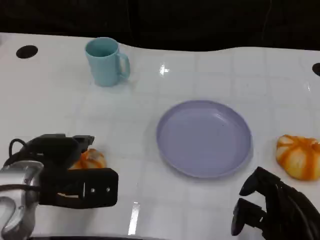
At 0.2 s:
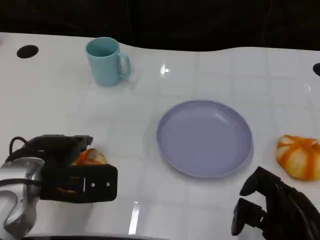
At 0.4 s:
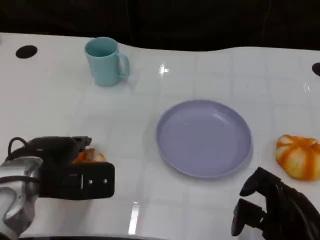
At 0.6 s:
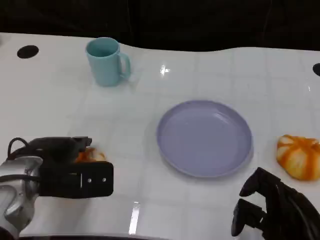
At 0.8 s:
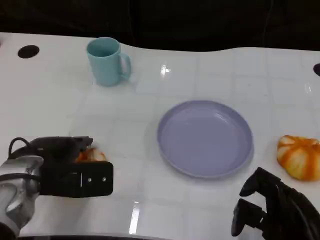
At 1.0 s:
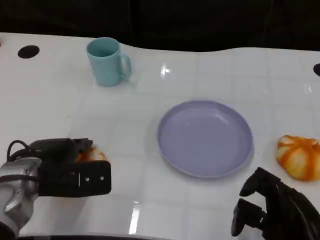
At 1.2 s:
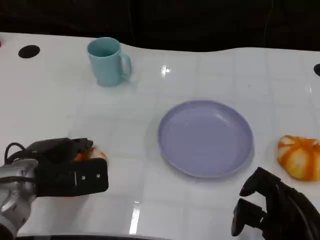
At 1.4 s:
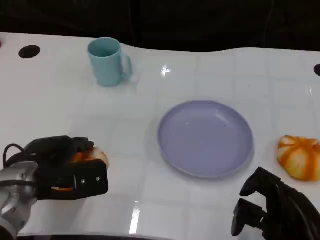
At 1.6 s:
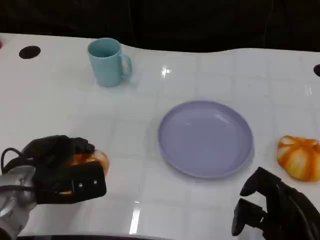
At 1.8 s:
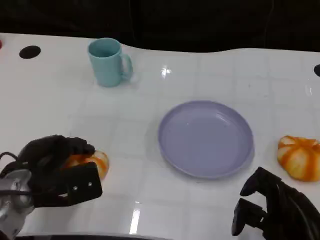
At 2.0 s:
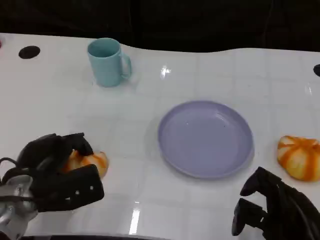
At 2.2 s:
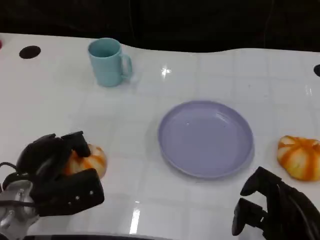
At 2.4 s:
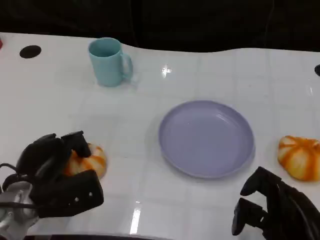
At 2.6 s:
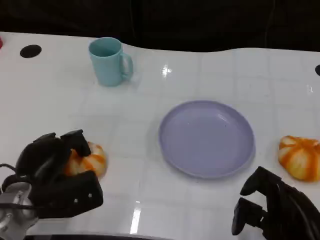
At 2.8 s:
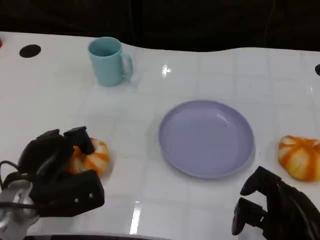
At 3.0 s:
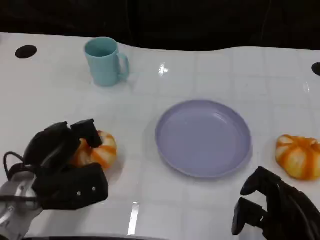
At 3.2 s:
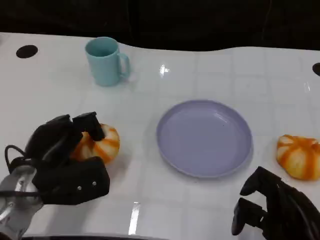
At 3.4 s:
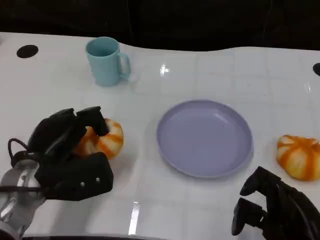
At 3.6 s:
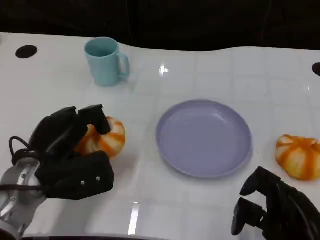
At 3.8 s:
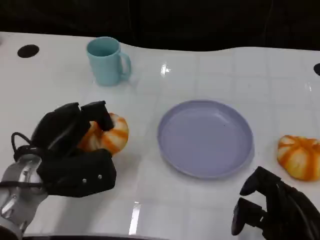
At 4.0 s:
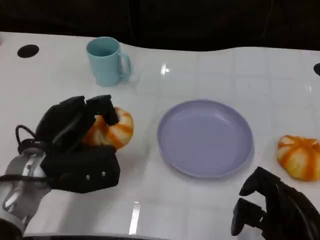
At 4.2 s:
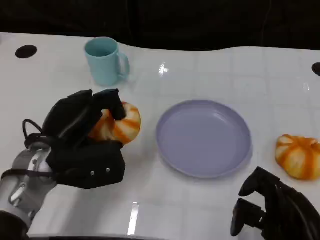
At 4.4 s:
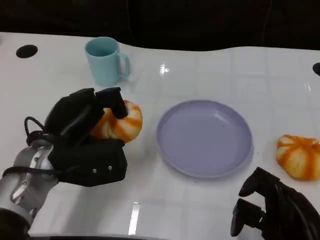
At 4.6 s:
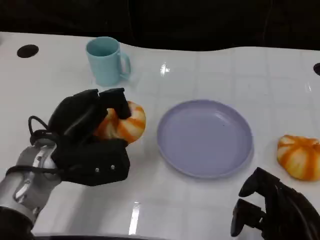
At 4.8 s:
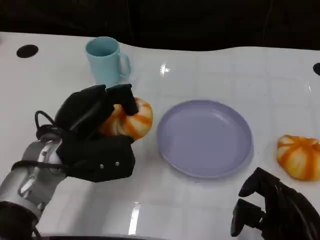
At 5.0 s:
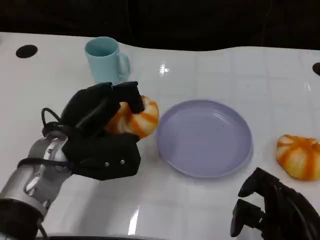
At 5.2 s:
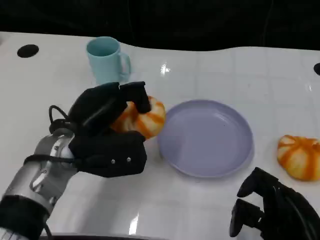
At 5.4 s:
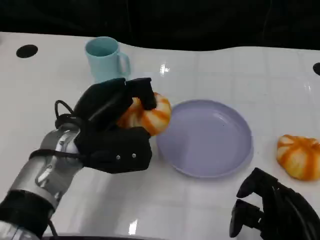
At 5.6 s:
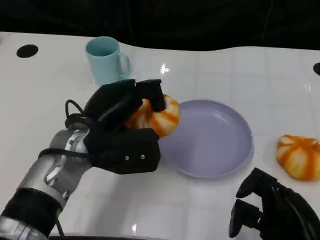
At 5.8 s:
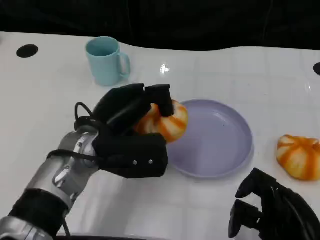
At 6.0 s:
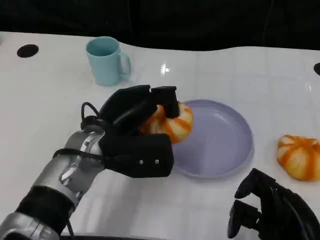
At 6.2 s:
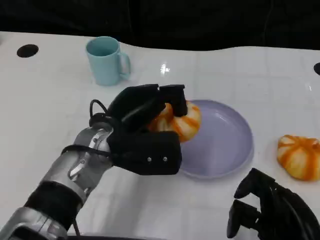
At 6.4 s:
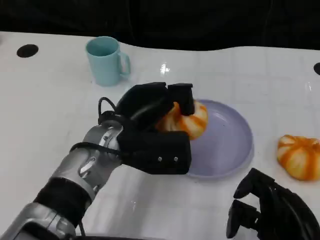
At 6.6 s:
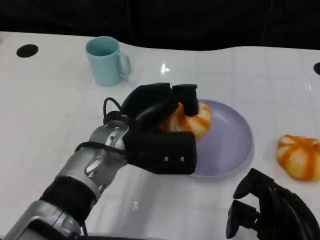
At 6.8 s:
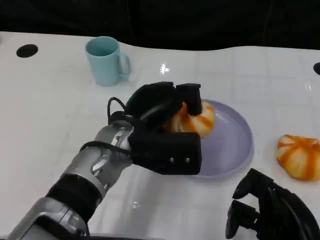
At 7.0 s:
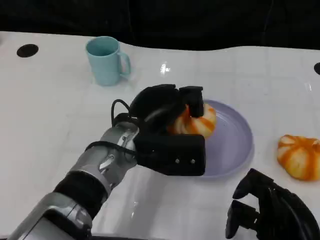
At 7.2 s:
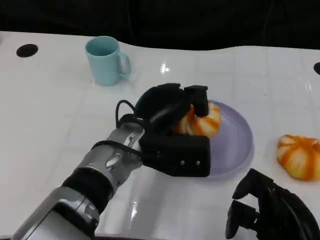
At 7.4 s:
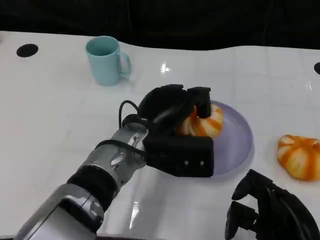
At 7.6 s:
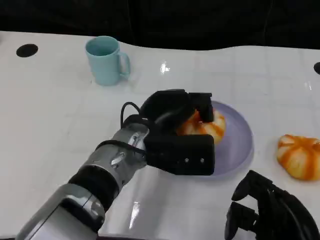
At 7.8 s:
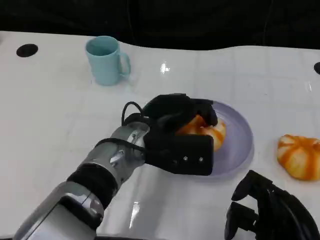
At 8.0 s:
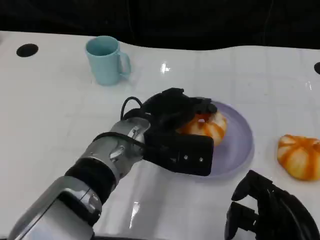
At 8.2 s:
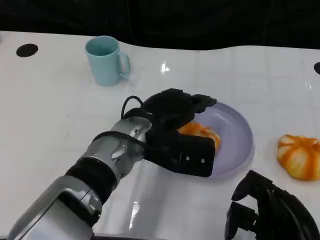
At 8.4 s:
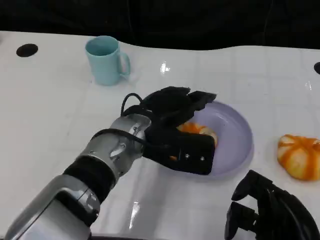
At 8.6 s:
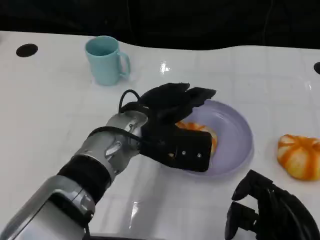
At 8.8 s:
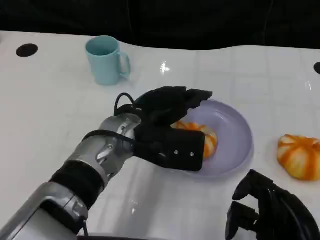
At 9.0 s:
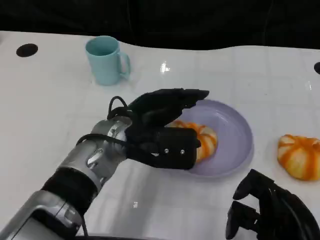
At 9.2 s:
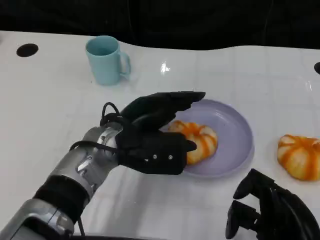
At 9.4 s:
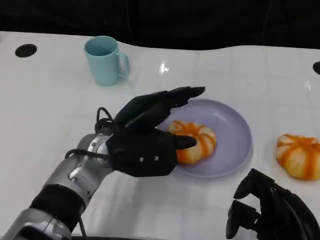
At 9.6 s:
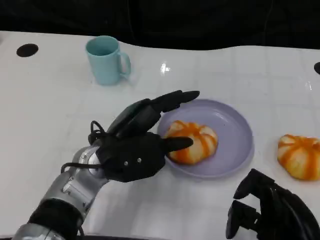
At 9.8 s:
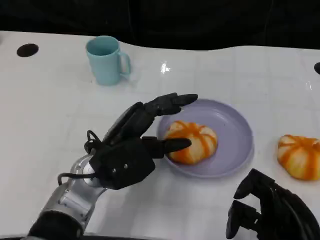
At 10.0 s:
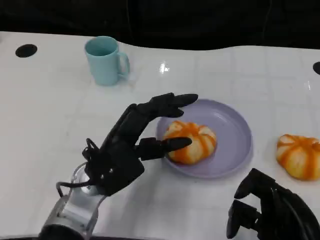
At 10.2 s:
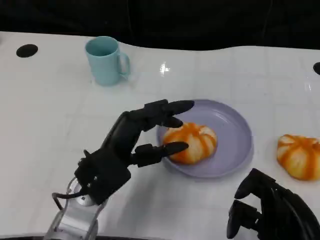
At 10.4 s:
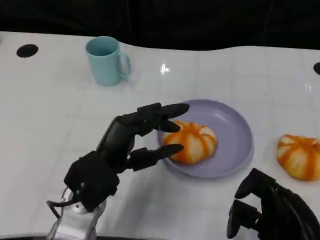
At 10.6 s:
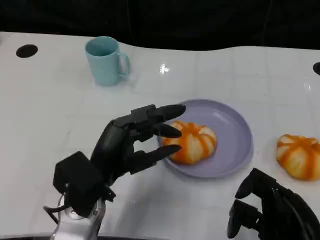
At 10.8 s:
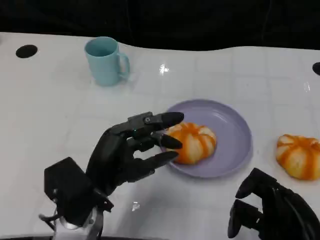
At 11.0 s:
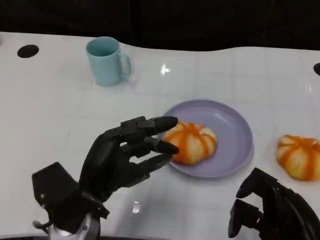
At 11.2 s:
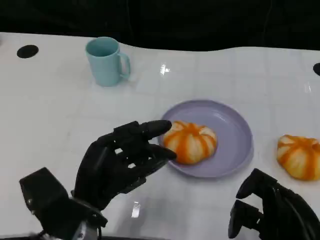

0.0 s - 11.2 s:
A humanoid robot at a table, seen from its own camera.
Task of the whole recording: Grasp the bread from the table and place it into the plate.
0.0 s - 1.6 s: There are only small adjustments of the hands.
3.2 s - 4.8 s: The left hand moves roughly 5 cm.
4.8 s - 6.4 s: The left hand shifts about 10 cm to the right.
8.0 s - 9.6 s: The left hand travels to the left by some 5 cm.
9.6 s - 11.2 s: The left hand shifts some 10 cm backward.

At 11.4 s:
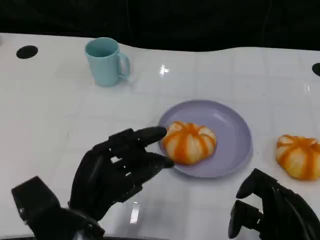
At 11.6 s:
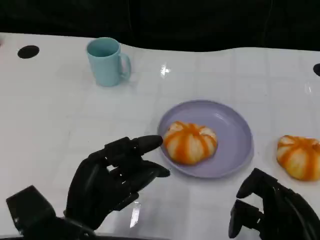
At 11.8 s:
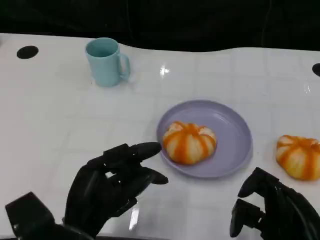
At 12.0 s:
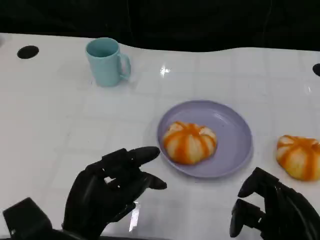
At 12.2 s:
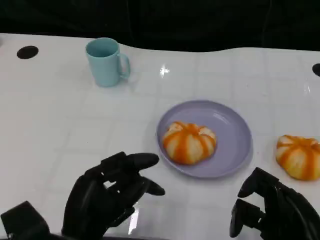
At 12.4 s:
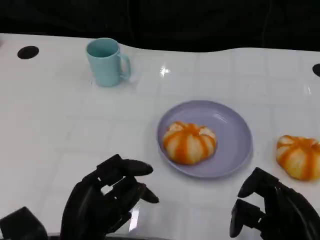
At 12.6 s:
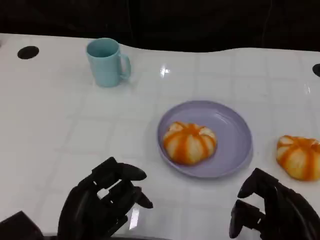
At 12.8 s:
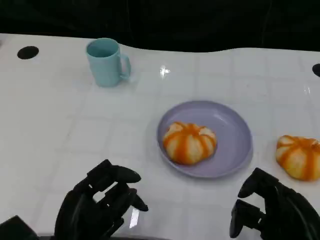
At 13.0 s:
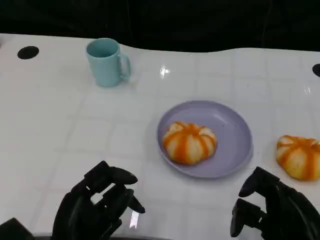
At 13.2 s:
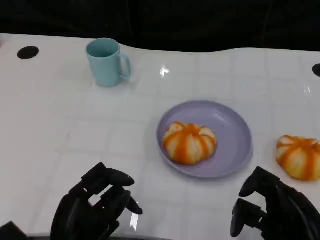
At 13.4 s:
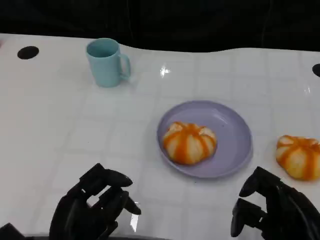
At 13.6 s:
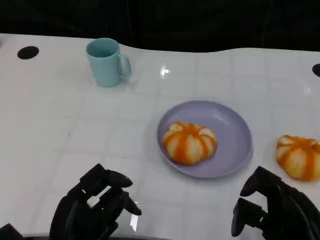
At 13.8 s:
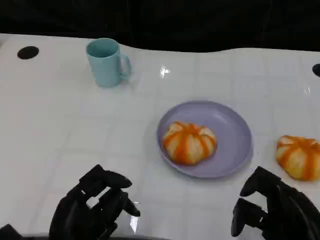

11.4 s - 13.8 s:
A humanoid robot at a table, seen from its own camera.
Task of the whole recording: Grasp the bread from the table and place it into the plate.
11.4 s - 12.6 s: The hands stay close to where they were, moving slightly.
12.6 s - 13.8 s: The hands move only a little.

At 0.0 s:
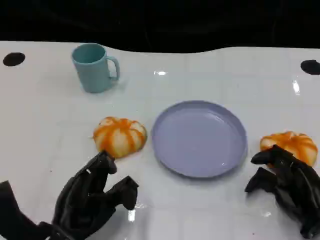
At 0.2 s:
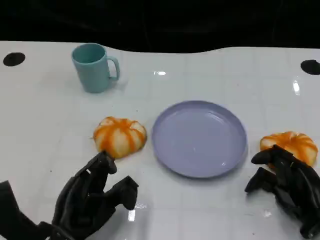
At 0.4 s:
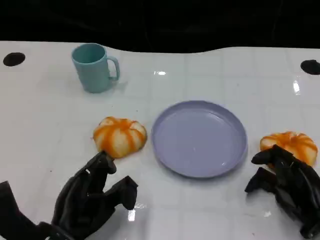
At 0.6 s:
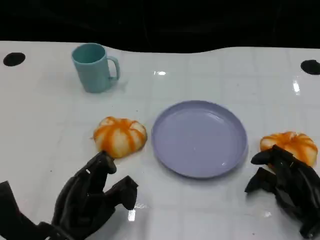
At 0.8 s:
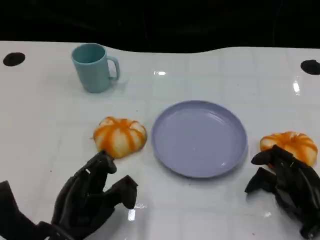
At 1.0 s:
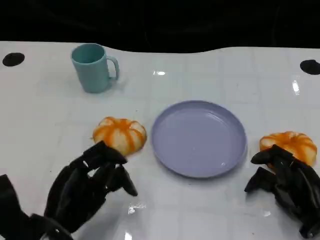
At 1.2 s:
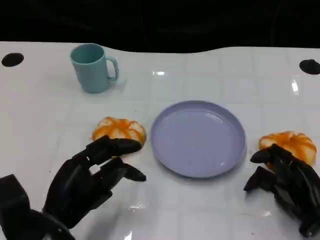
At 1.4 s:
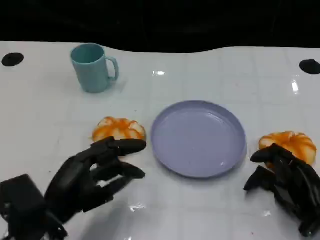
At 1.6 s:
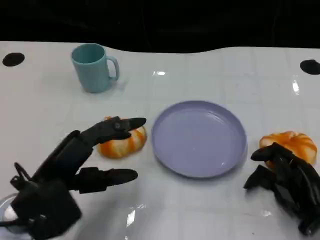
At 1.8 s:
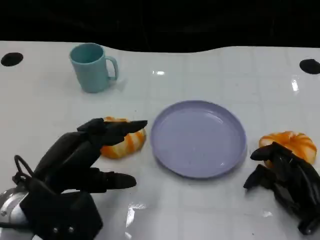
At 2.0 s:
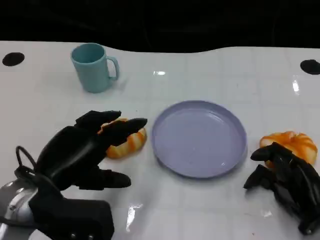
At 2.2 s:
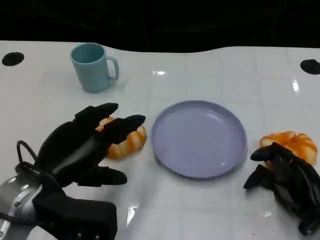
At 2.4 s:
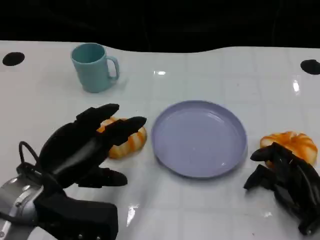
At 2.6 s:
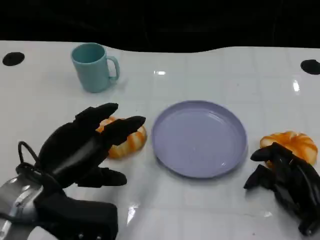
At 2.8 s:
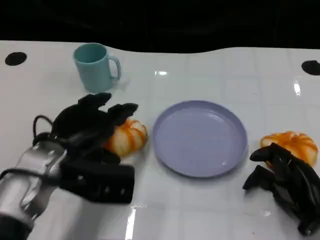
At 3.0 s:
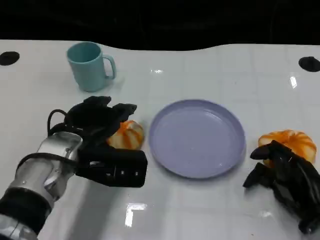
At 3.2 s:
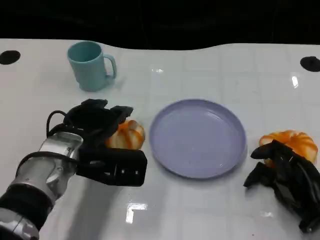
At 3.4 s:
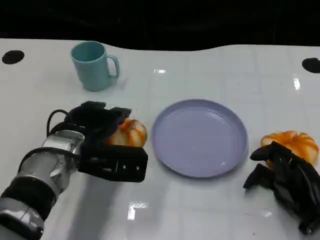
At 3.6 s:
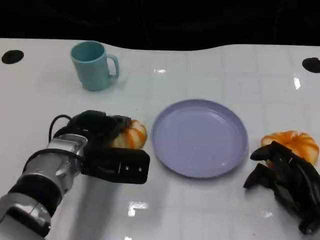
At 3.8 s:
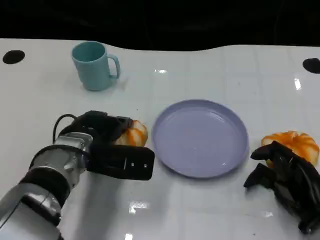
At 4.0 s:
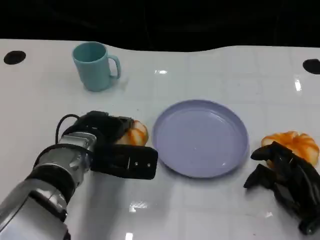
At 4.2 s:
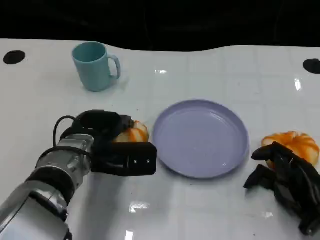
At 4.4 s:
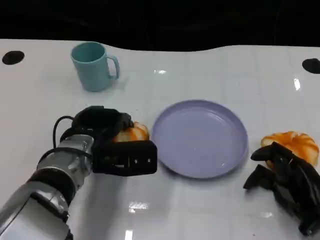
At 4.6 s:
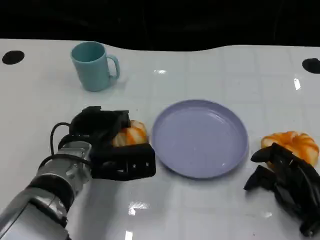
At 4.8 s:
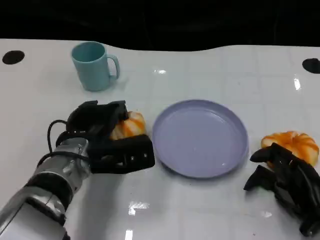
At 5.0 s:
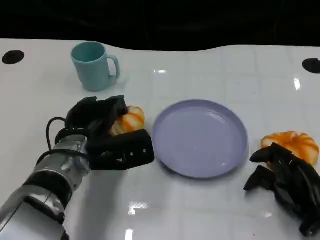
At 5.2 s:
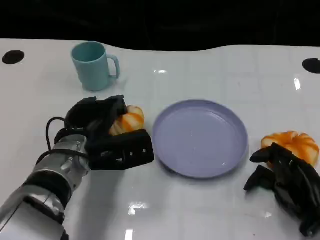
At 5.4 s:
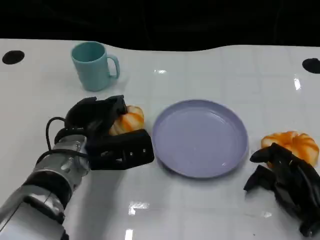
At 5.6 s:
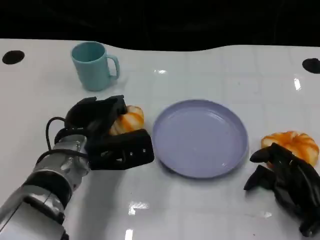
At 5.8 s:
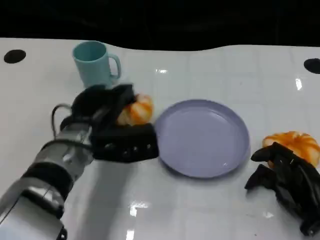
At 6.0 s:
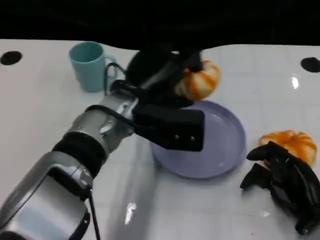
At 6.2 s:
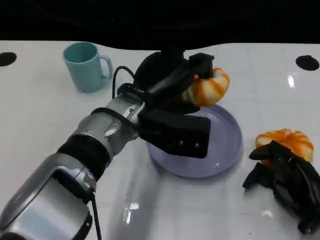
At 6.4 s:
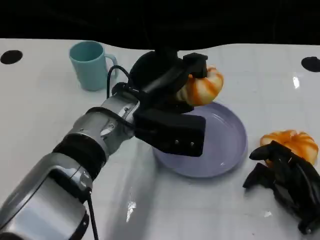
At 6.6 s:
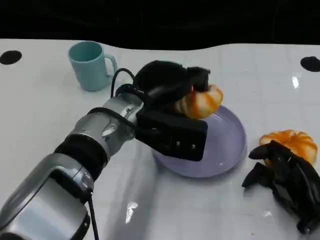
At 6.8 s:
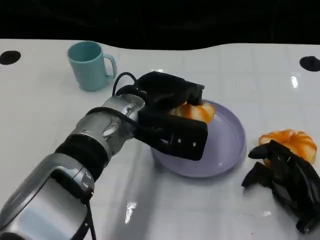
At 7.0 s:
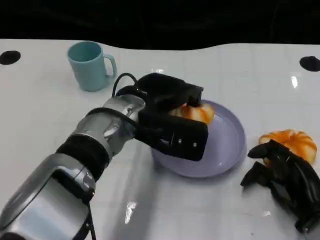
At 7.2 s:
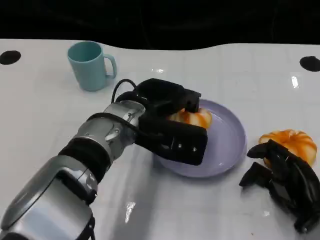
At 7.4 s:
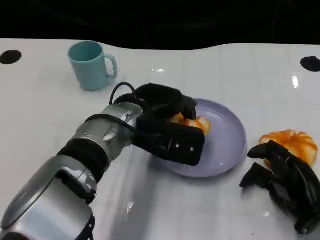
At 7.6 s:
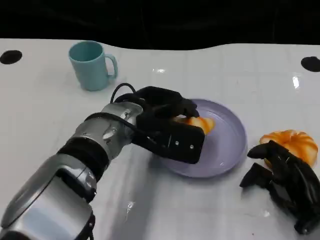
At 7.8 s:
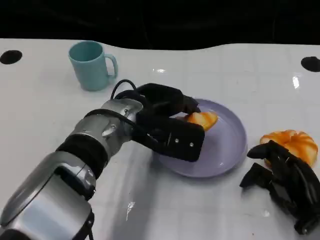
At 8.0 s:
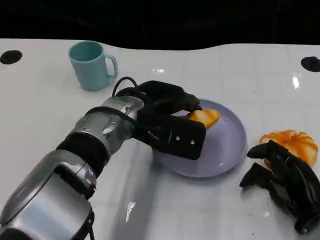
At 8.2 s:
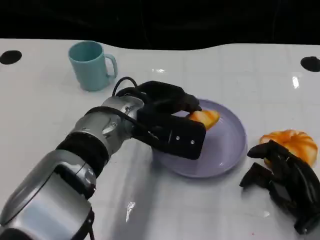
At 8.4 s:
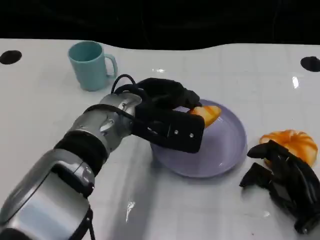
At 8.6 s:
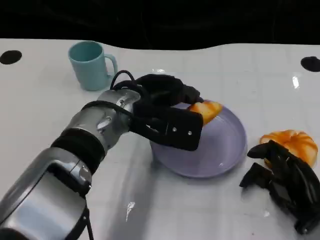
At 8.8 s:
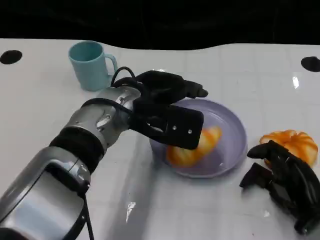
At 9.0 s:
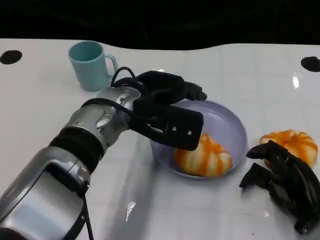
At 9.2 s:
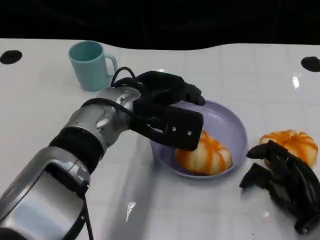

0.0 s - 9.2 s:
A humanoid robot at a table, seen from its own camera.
Task of the whole recording: Grasp the bread from the table and place it into the plate.
0.0 s - 1.6 s: The left hand travels upward by roughly 10 cm.
1.6 s - 3.0 s: The left hand shifts approximately 10 cm forward and to the right.
3.0 s - 4.6 s: There are only small adjustments of the hands.
4.6 s - 6.2 s: The left hand is displaced upward and to the right by roughly 10 cm.
7.6 s - 9.2 s: The hands make only small movements.
